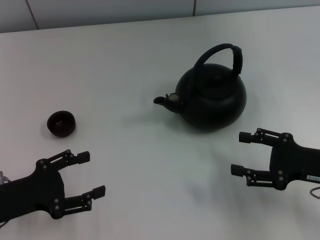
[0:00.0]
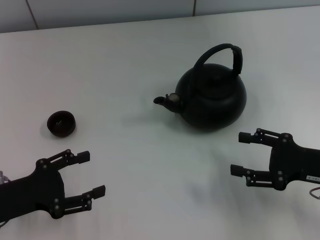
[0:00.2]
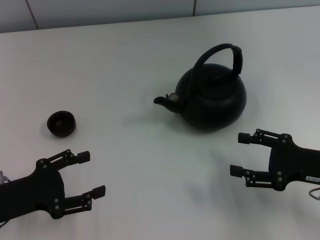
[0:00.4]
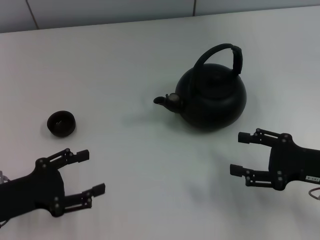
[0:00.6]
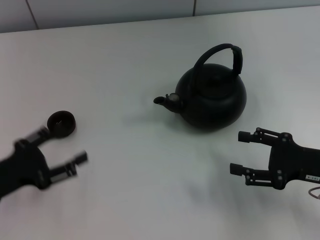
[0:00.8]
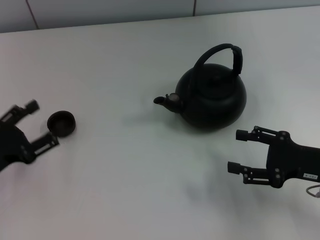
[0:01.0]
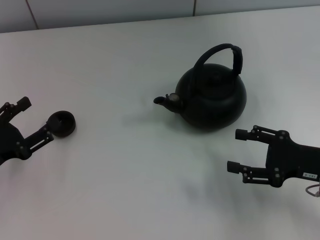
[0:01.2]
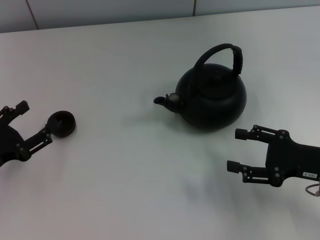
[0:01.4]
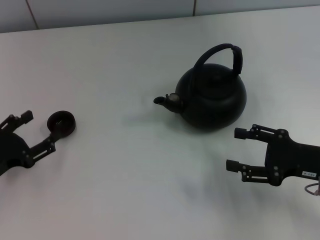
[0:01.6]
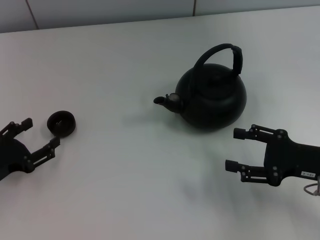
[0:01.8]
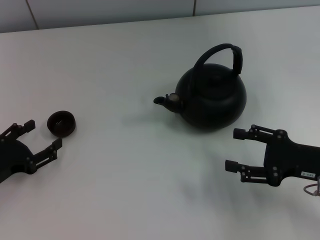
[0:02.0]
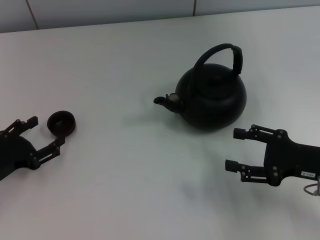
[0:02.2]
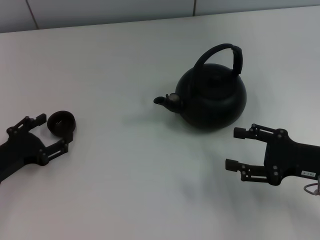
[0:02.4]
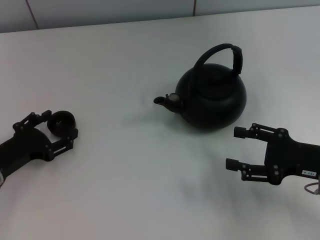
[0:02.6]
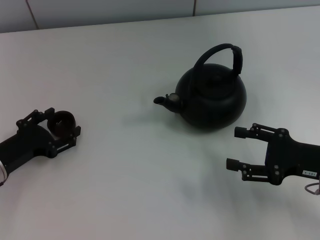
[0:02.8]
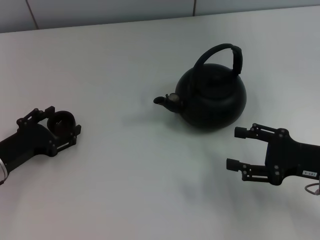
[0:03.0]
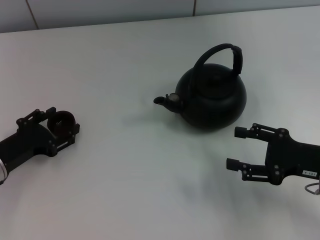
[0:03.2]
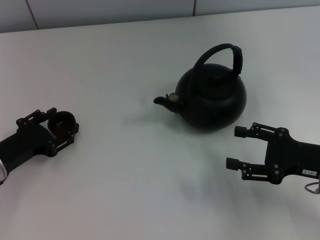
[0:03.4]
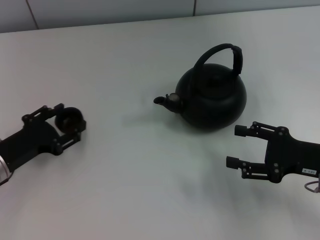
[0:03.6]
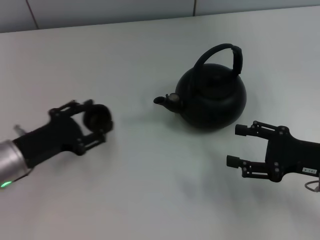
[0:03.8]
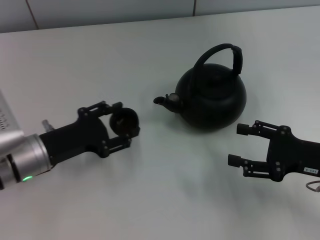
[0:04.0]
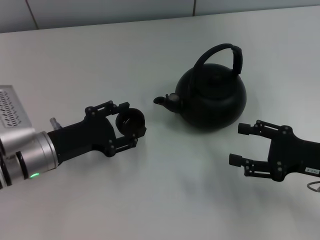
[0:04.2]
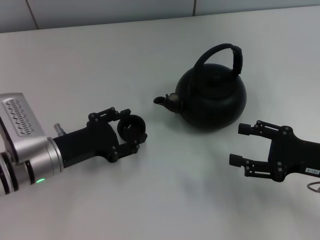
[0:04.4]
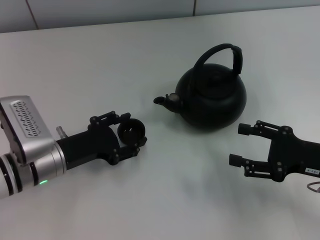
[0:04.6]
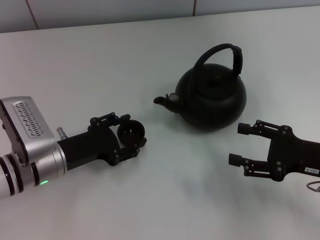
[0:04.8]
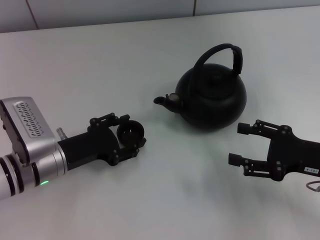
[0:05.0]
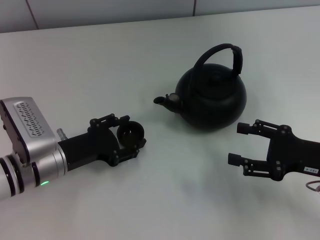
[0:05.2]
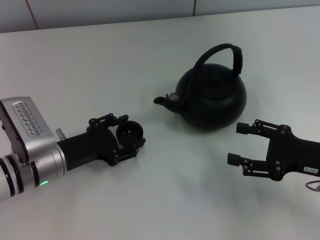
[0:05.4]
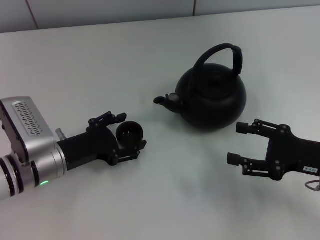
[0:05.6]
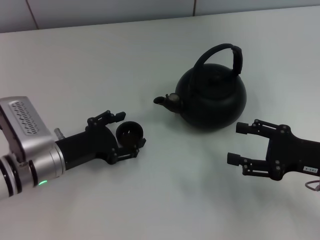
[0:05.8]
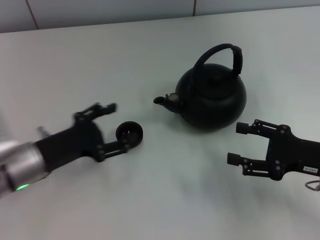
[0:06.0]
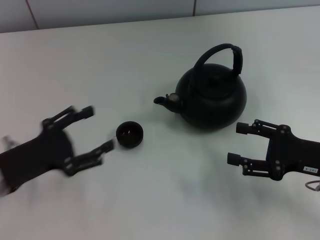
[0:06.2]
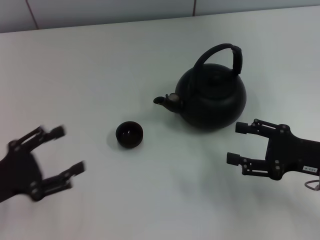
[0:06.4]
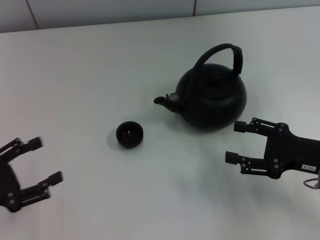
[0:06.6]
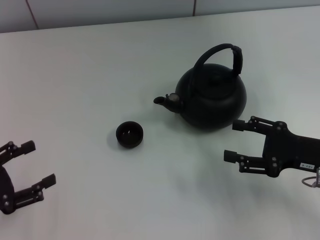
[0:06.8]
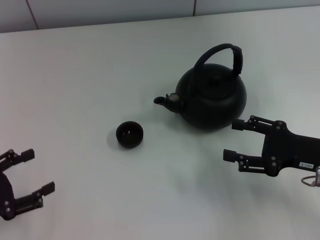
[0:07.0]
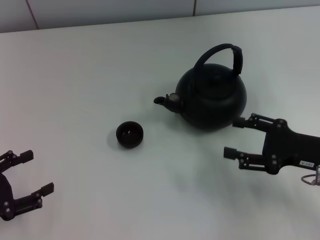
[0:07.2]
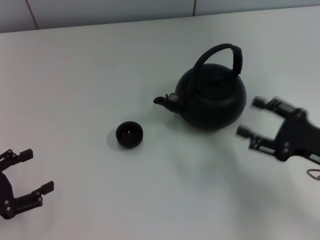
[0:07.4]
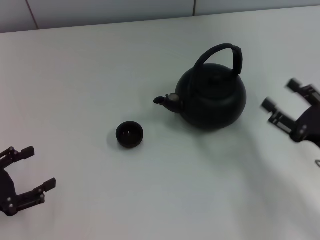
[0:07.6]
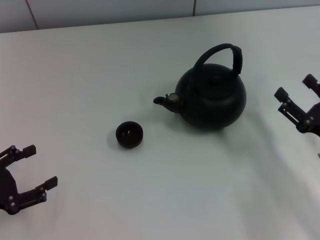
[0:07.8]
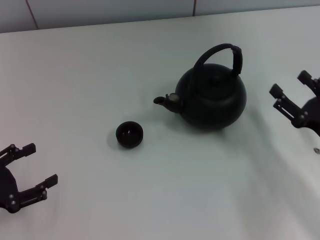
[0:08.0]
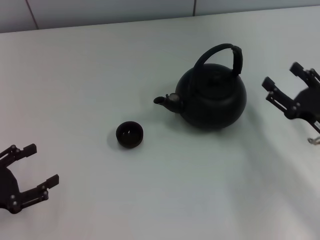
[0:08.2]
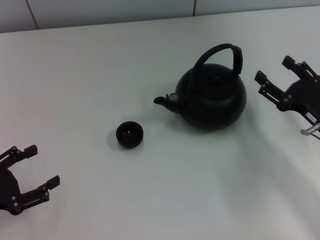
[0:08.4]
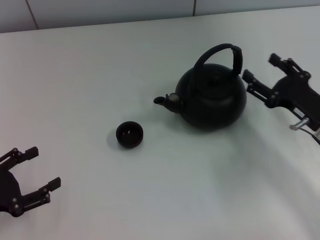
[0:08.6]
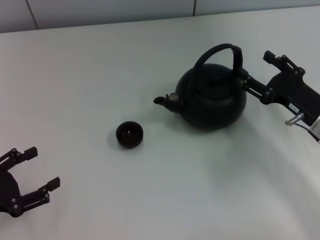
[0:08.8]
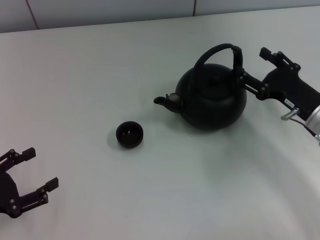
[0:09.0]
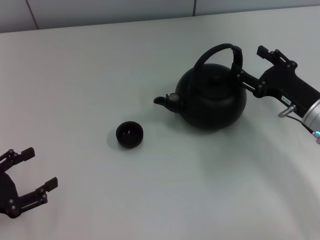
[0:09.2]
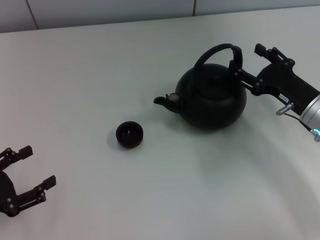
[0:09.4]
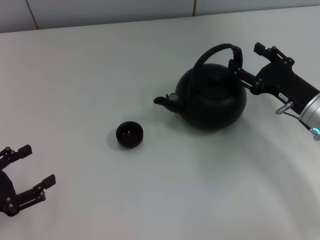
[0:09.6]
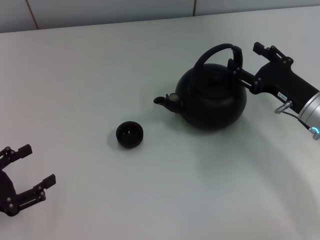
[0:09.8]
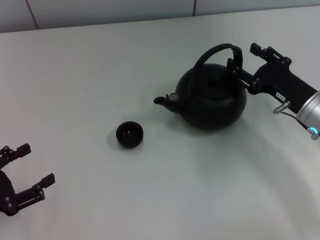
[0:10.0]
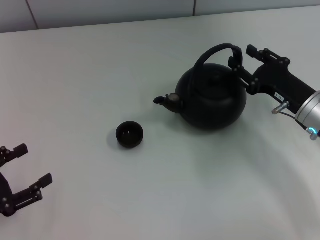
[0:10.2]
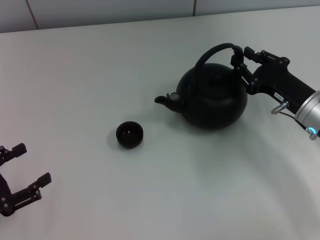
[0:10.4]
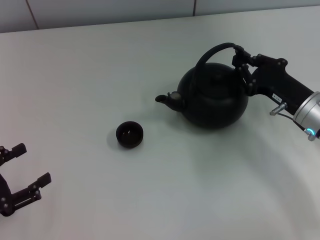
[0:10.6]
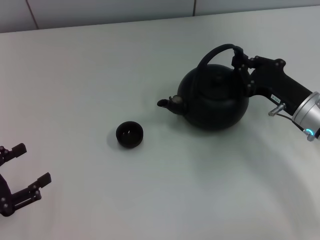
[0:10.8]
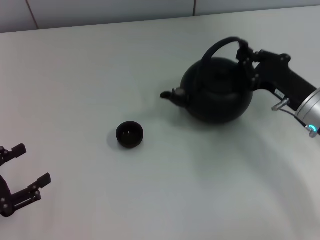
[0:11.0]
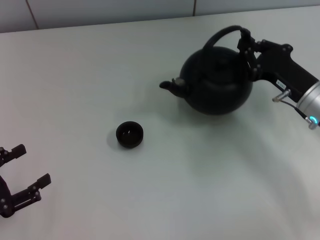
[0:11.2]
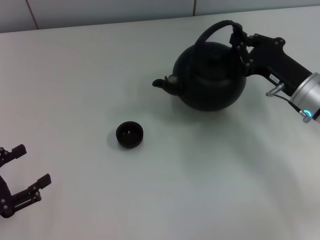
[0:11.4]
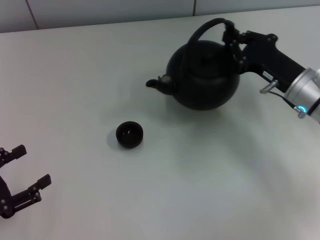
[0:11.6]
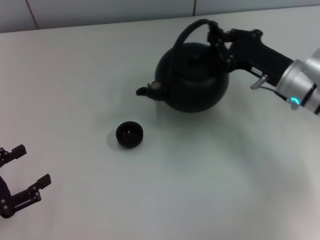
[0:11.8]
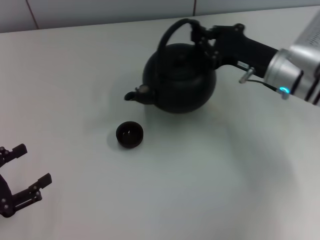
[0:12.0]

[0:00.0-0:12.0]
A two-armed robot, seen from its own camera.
Task of the whole recording: Grasp the handle of the teapot with one hand and pour tea into the teacup.
Step, 0:00.0 to 0:04.0: Pick up the teacup with the left gripper.
Step, 0:04.2 to 0:06.2: Place the teacup in the center of view with the left gripper.
Step, 0:06.4 to 0:11.2: Pick up the teapot with the right gripper.
0:01.6 to 0:03.0: The left gripper ends up about 5 cm from where it was.
0:03.0 to 0:04.4: The left gripper goes about 10 cm to the right, and closes.
0:04.4 to 0:06.0: The left gripper opens its fingers.
0:06.0 to 0:07.6: The left gripper goes approximately 15 cm to the left and backward.
0:07.6 to 0:09.0: The right gripper moves forward, some 10 cm.
0:09.0 to 0:10.4: The right gripper closes its fingers.
0:10.4 to 0:12.0: The right gripper travels forward by roughly 5 cm, and closes.

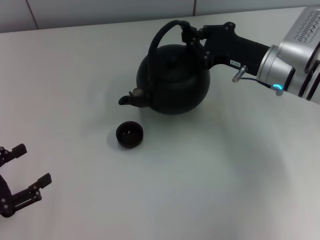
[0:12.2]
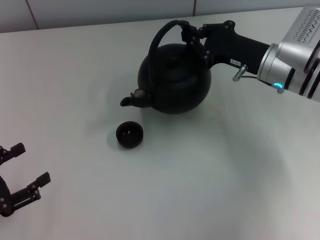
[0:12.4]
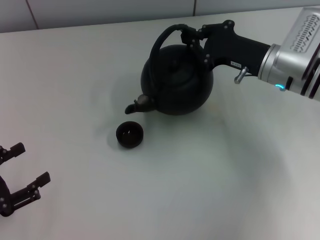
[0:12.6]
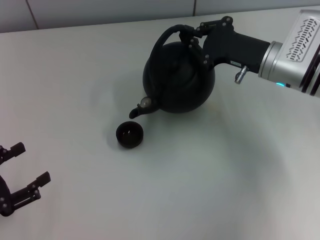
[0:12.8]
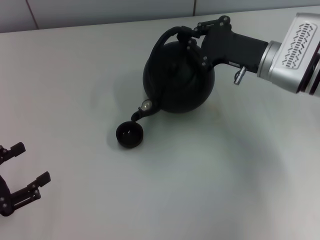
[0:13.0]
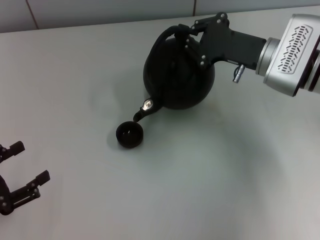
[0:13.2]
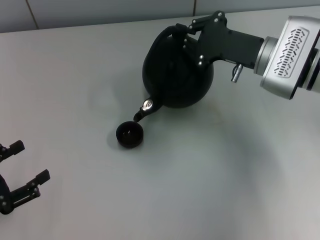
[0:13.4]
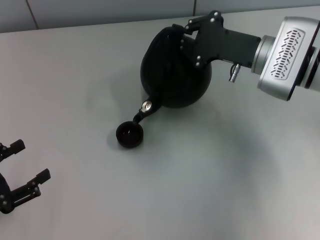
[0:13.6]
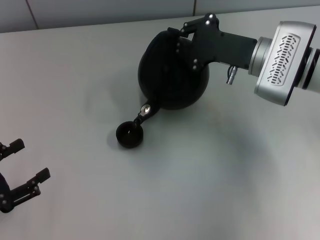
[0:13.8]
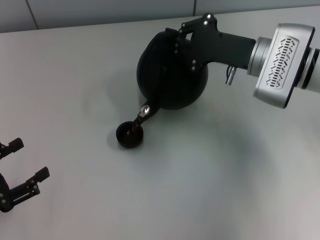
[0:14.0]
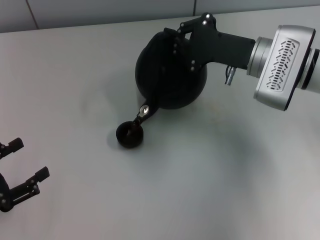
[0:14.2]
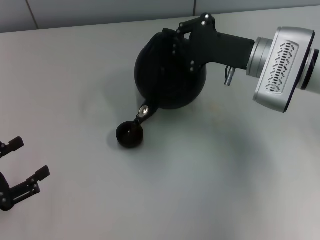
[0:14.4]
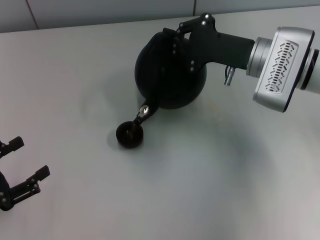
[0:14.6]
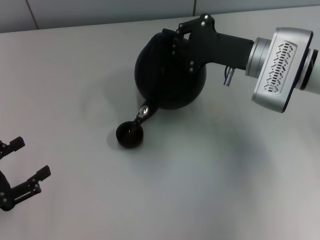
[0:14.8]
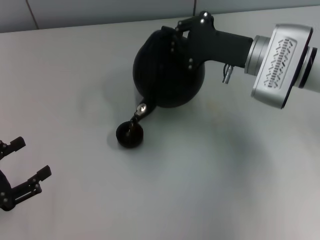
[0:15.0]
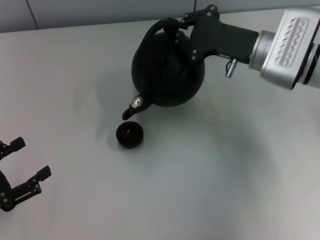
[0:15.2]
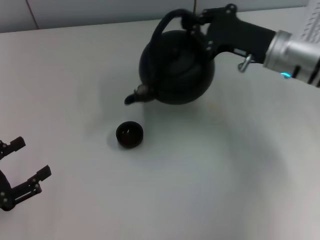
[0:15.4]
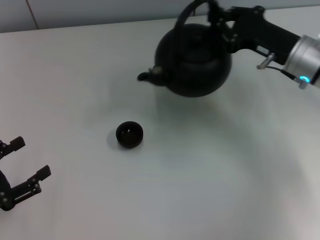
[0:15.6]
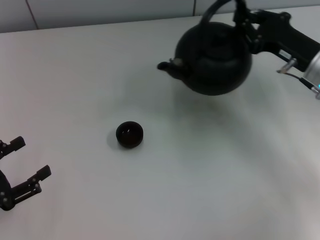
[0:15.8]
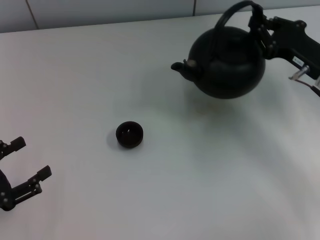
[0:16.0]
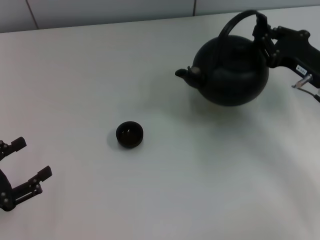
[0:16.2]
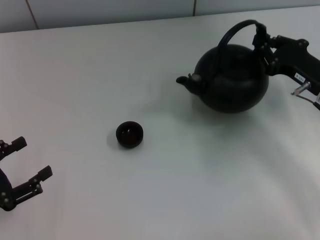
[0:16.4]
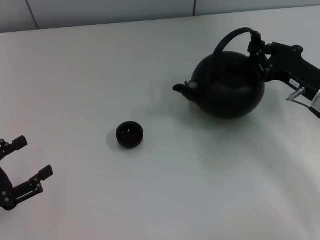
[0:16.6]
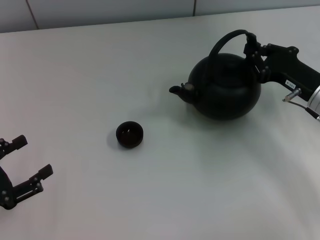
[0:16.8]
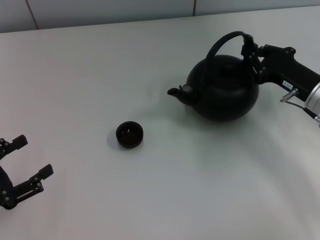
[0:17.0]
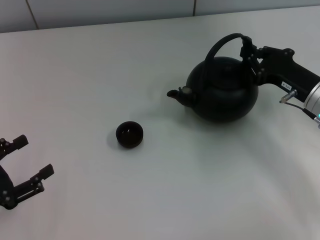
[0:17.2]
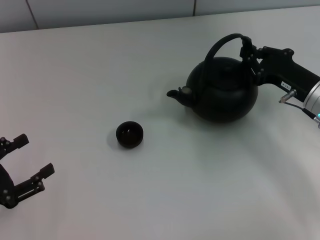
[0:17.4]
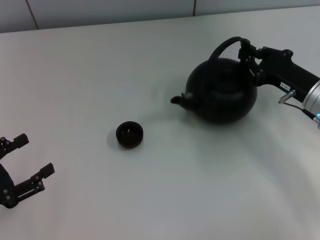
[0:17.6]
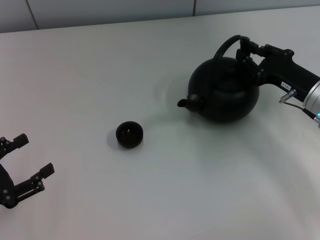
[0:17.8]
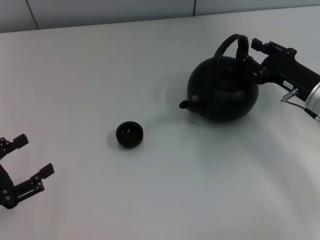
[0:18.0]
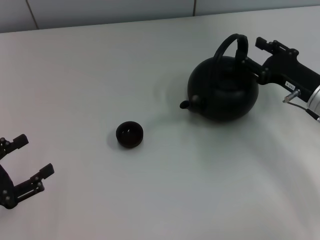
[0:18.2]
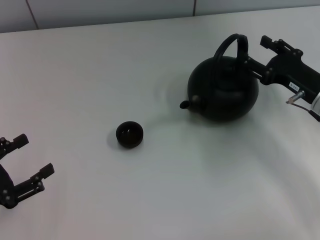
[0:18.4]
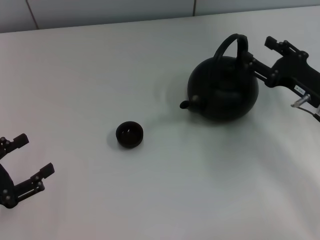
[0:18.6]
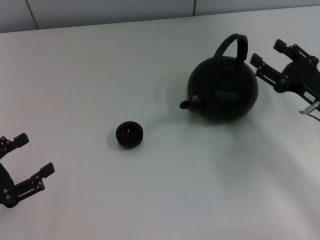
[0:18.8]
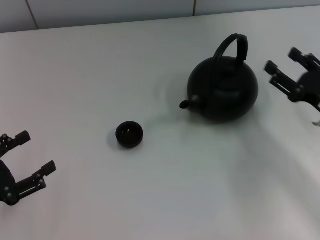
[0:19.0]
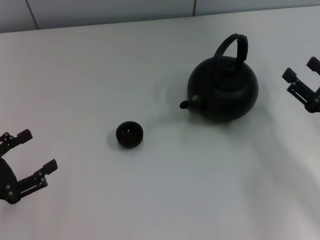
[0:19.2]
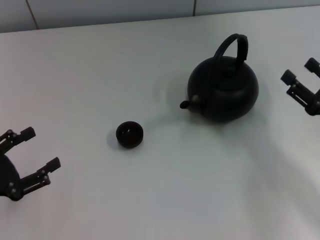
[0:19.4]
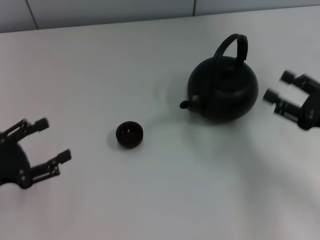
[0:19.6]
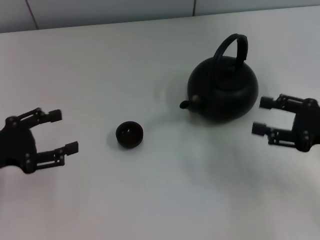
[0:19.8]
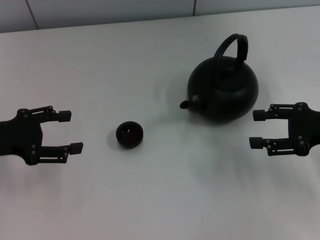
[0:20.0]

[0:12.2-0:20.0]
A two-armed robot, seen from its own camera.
Task of the whole recording: Grasp the handle of the teapot with one hand and pour tea into the teacup.
Step, 0:15.6 to 0:17.8: Put down the teapot with the right gripper.
0:15.4 to 0:16.8: The right gripper moves to the right, backward and downward, about 10 cm.
0:16.8 to 0:18.4: The right gripper opens up.
0:18.4 to 0:20.0: The left gripper is displaced forward and upward by approximately 15 cm. The right gripper shifts by some 10 cm.
